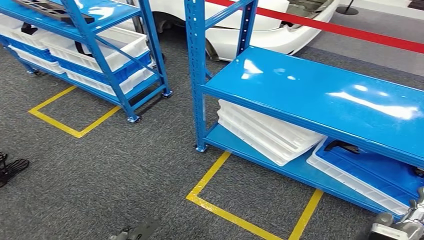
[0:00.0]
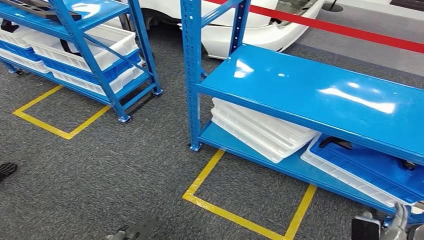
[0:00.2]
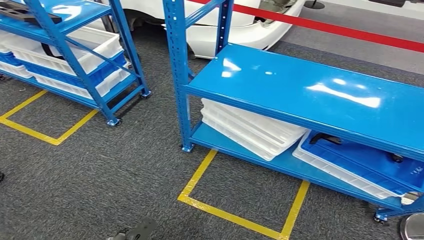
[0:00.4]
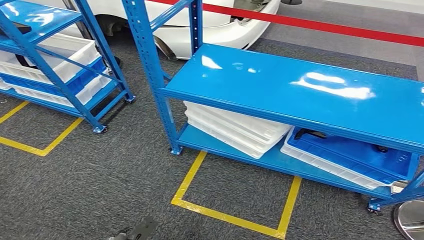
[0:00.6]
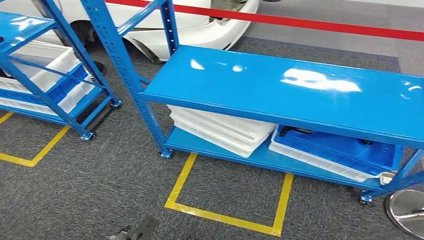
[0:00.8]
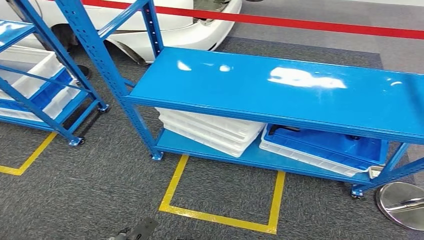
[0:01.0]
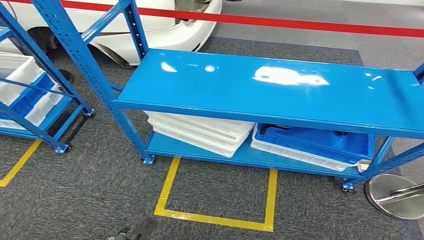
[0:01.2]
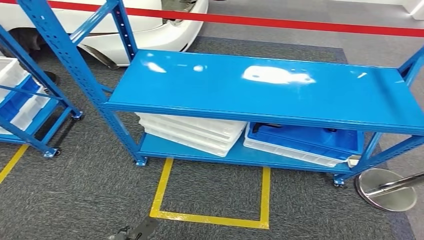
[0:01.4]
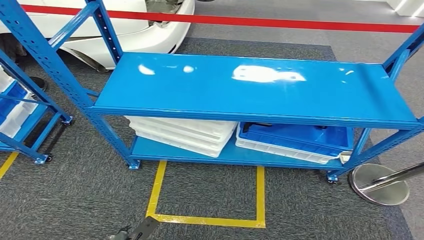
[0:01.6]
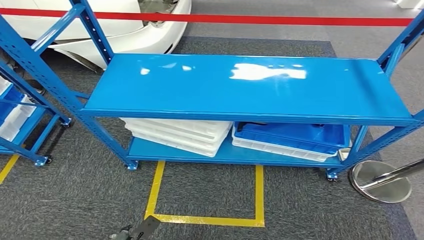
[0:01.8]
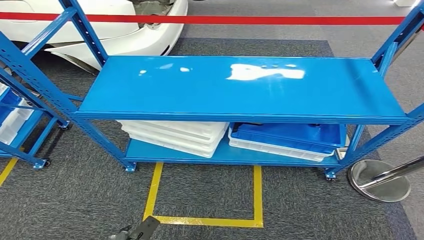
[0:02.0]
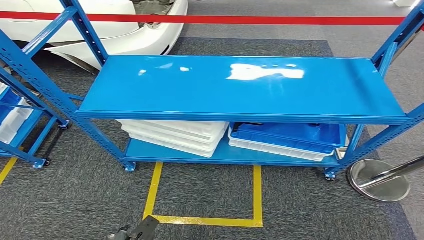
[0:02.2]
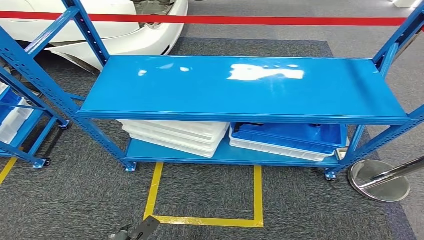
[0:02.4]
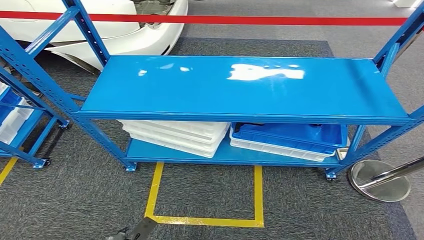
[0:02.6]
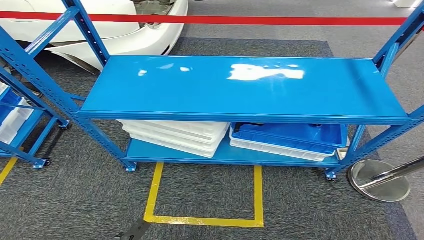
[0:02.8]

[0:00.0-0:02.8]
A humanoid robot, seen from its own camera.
Step, 0:00.0 to 0:02.8: Move to the initial position of the shelf.
